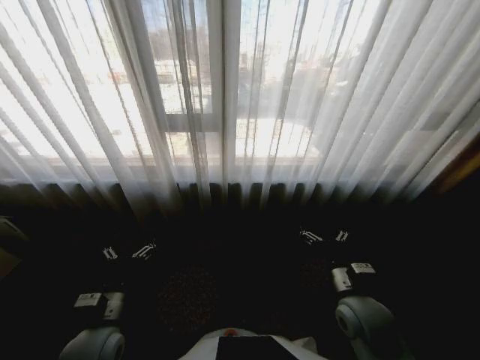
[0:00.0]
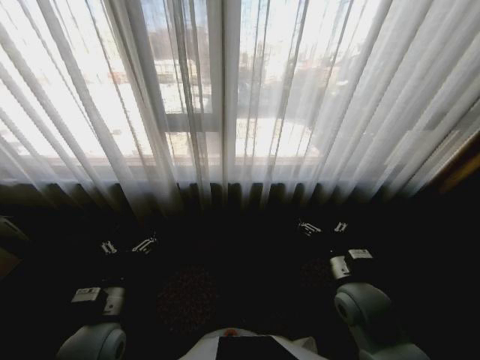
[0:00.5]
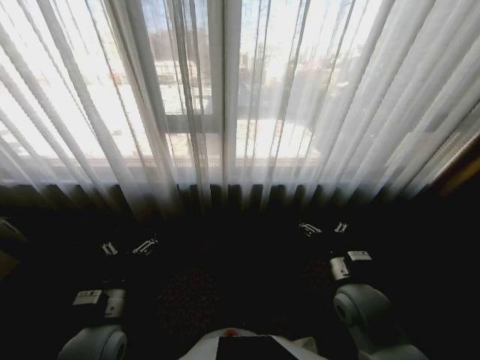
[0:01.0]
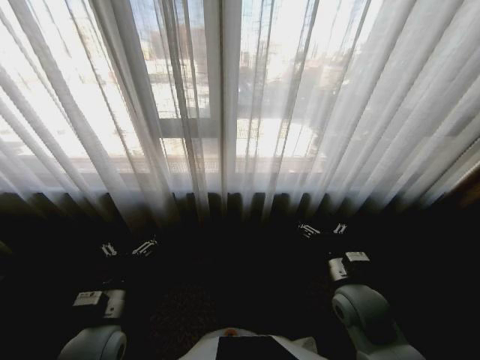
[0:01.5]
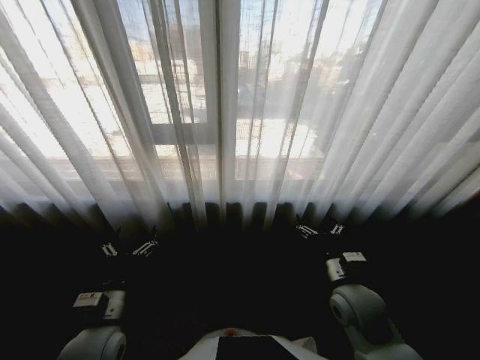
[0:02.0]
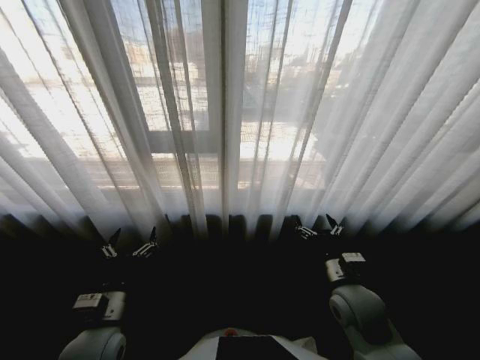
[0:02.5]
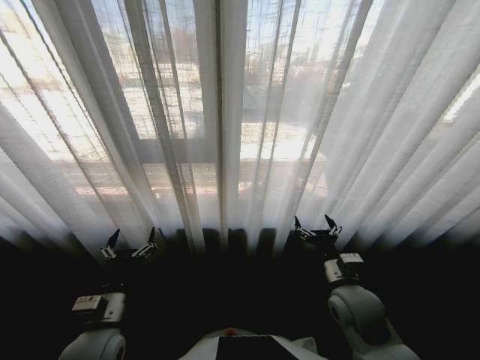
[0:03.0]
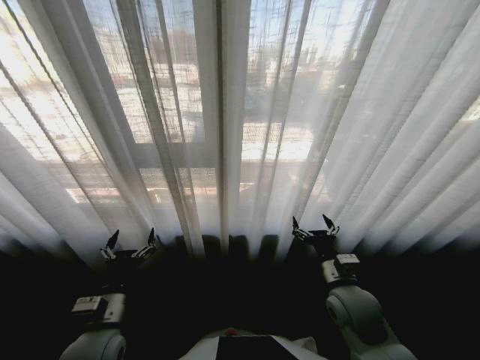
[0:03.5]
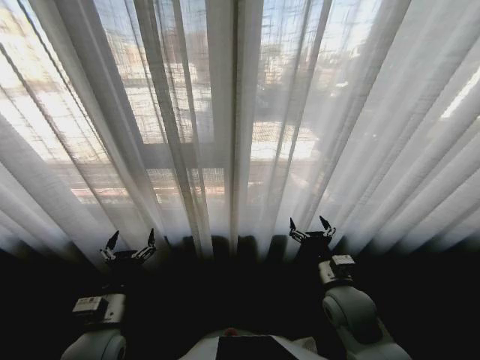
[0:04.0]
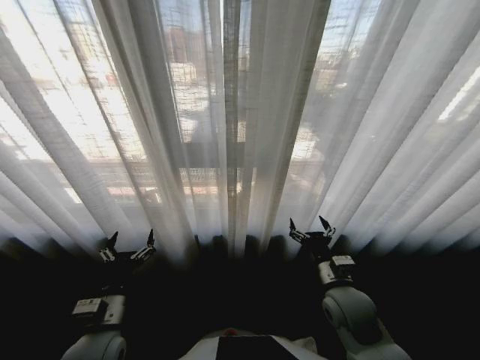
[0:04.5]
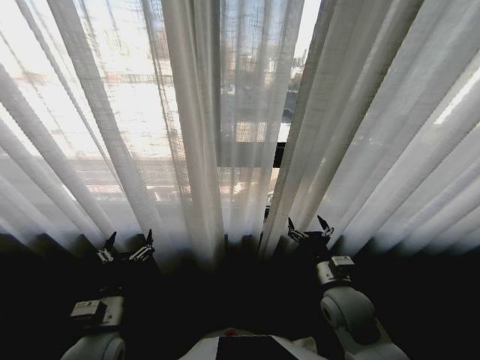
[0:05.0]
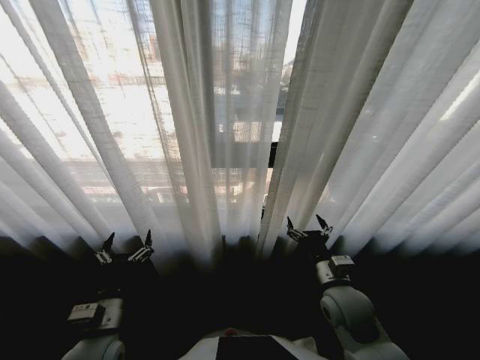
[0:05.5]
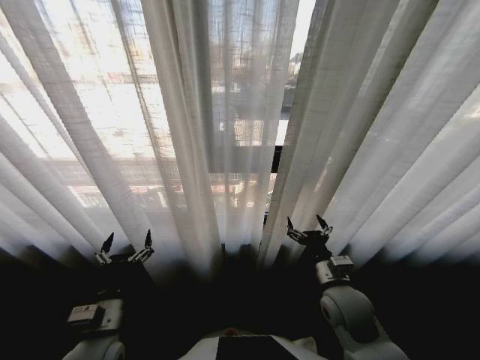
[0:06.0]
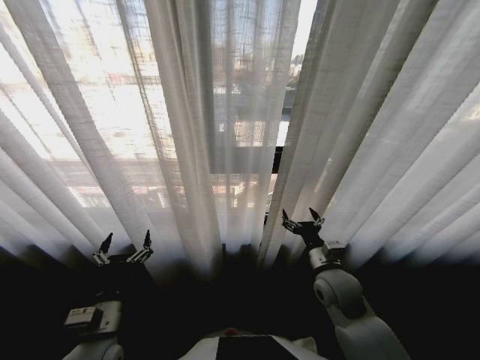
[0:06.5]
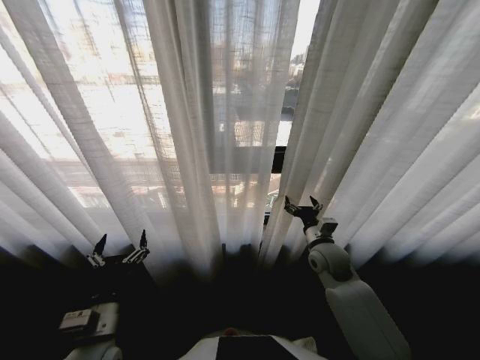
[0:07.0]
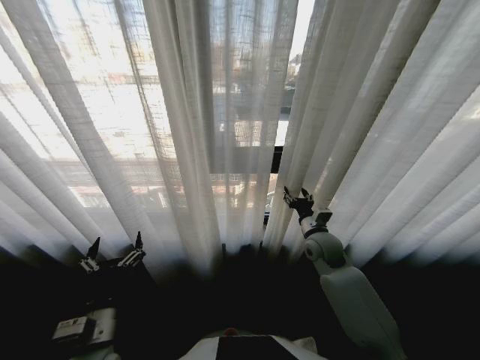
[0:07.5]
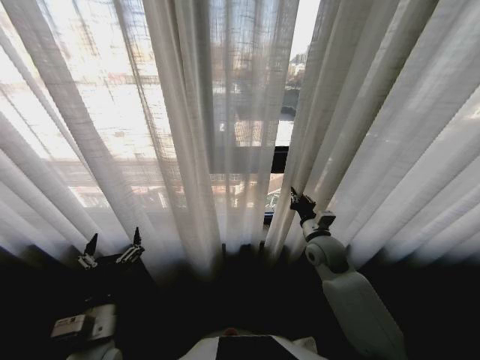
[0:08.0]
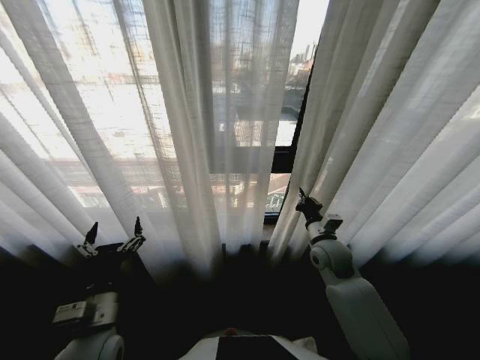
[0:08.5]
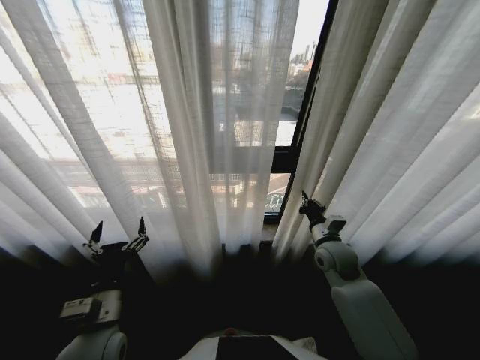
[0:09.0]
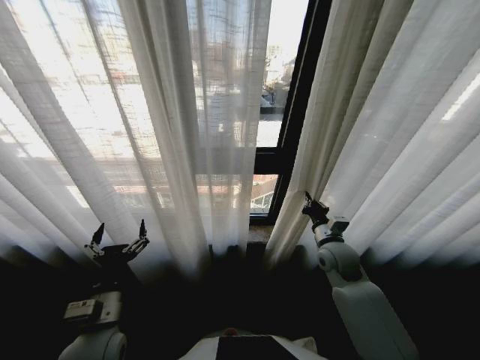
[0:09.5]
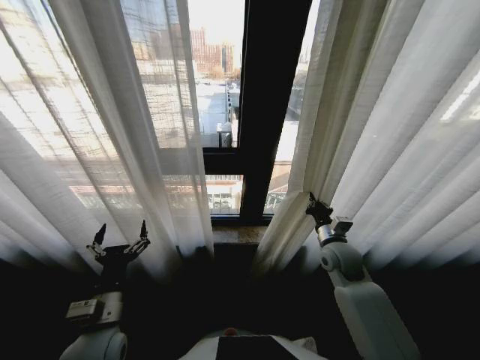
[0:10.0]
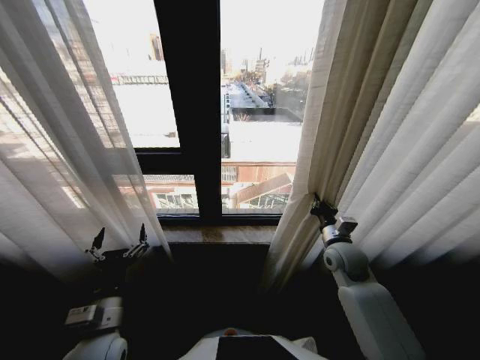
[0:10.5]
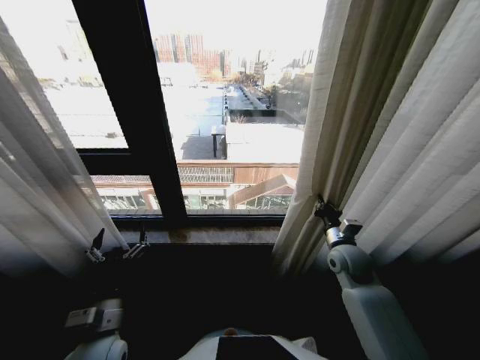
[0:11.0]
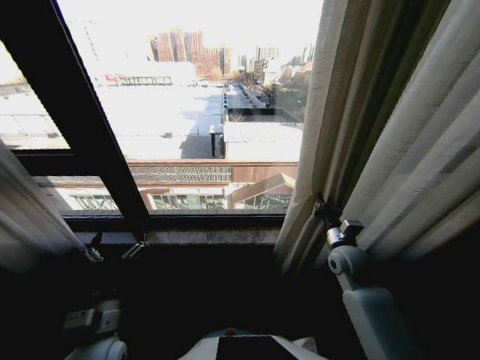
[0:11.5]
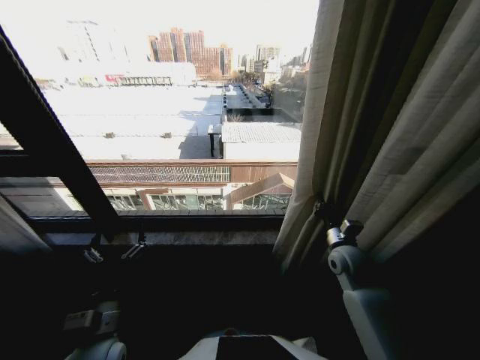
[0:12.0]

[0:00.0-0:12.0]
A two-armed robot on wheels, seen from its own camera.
Task of the whole recording: Open the curtains by pulling them apart, changing their state from closed to fully open.
0:06.0 to 0:08.0: The right gripper moves forward, approximately 15 cm, and closes up.

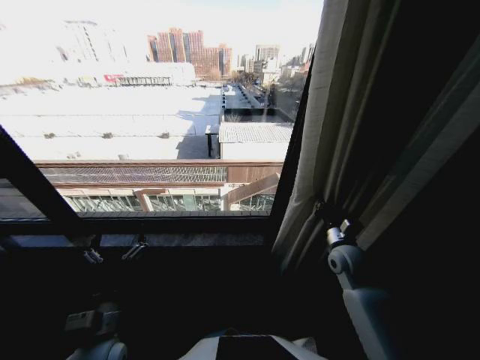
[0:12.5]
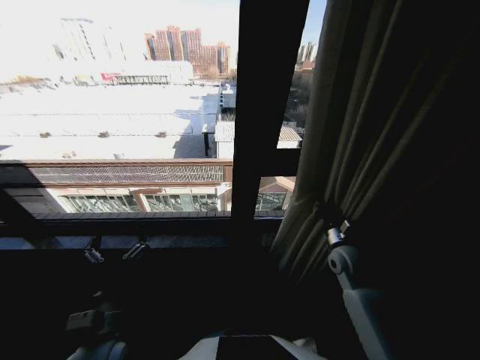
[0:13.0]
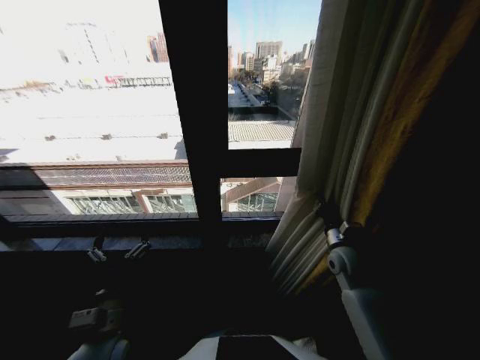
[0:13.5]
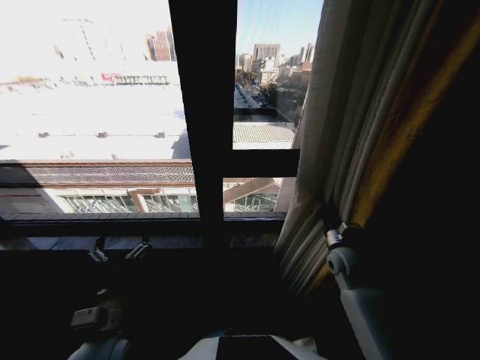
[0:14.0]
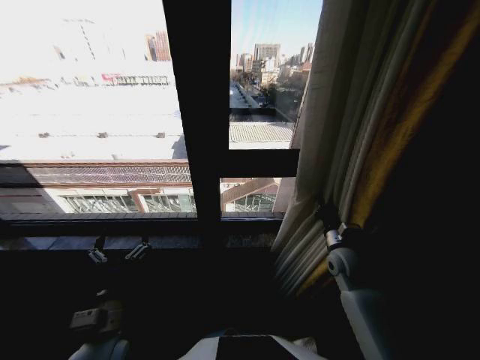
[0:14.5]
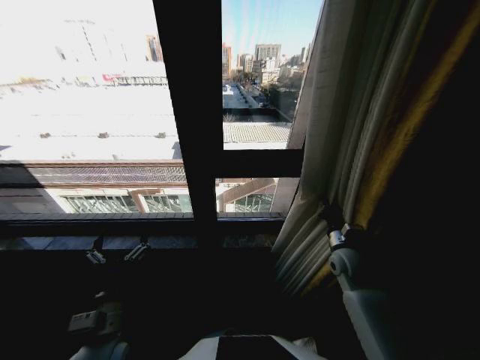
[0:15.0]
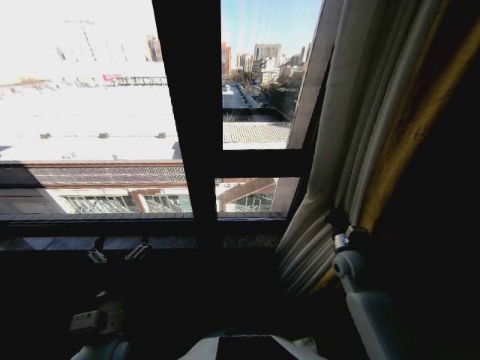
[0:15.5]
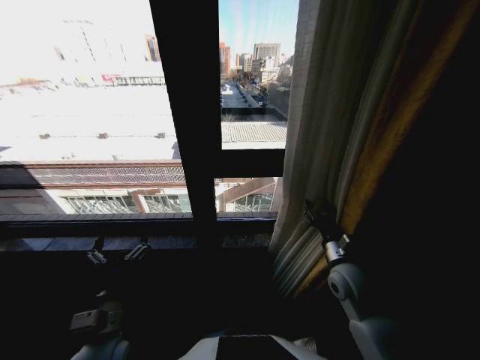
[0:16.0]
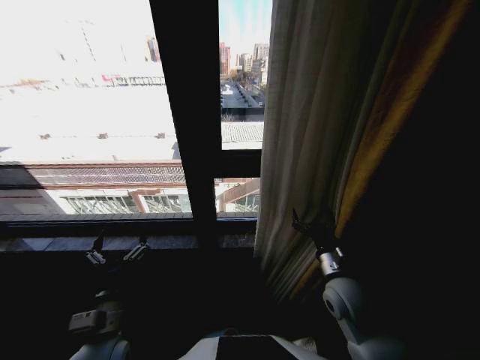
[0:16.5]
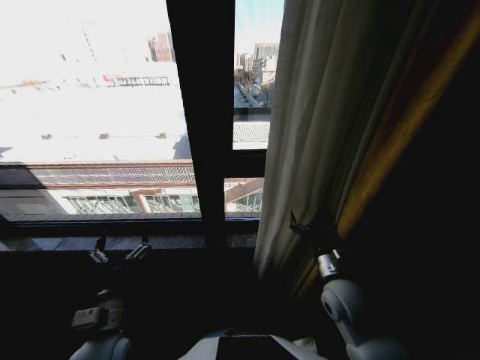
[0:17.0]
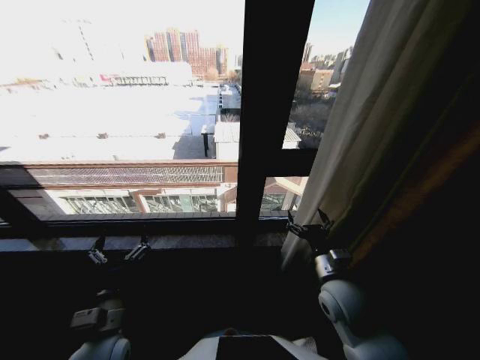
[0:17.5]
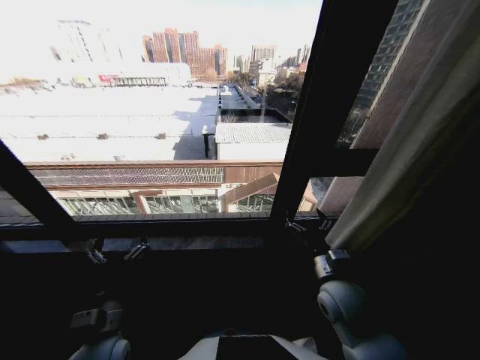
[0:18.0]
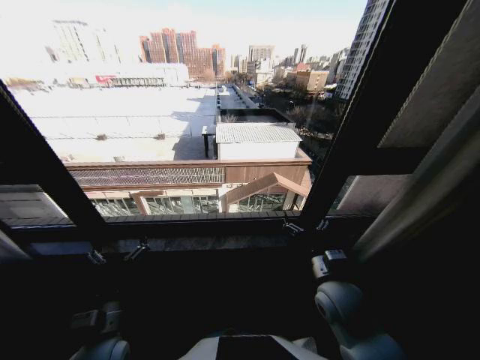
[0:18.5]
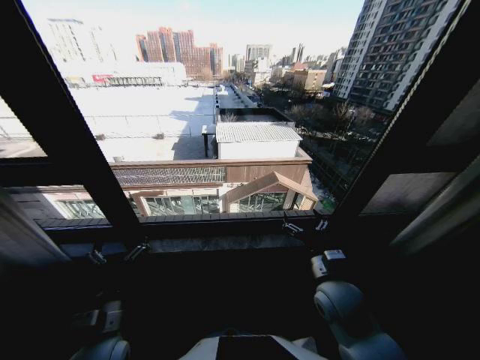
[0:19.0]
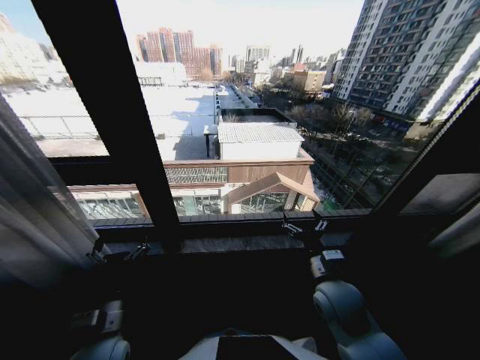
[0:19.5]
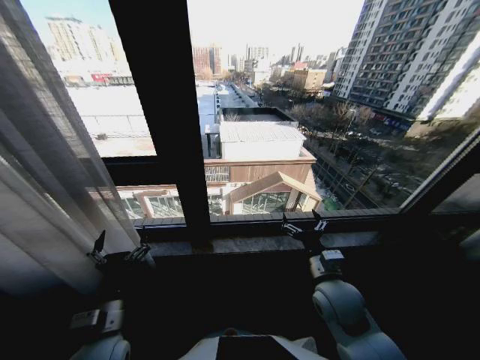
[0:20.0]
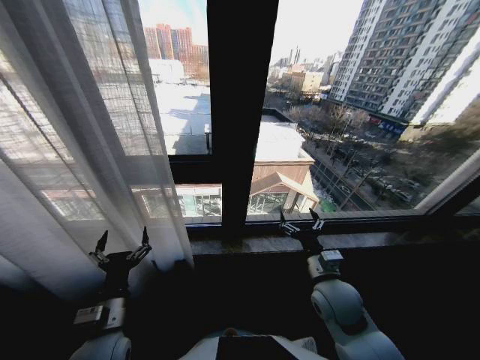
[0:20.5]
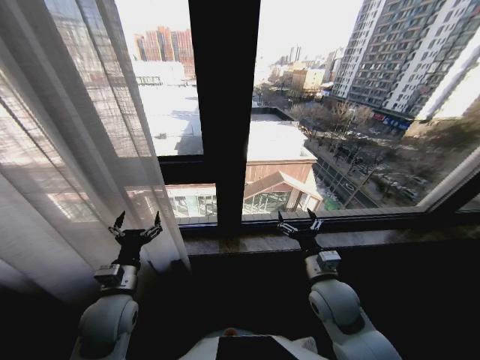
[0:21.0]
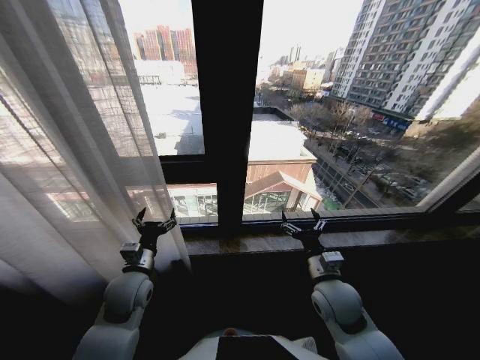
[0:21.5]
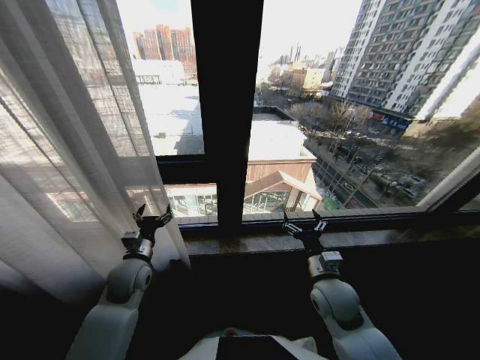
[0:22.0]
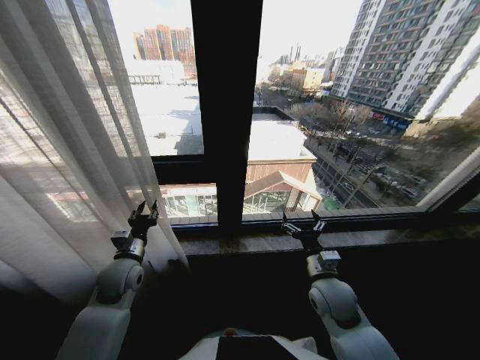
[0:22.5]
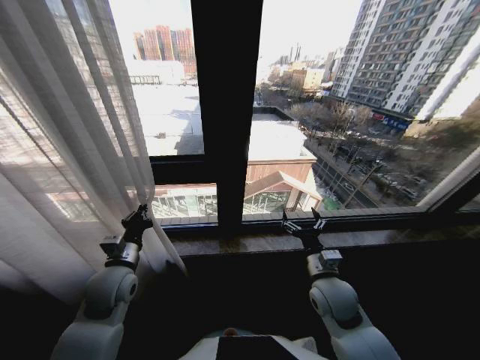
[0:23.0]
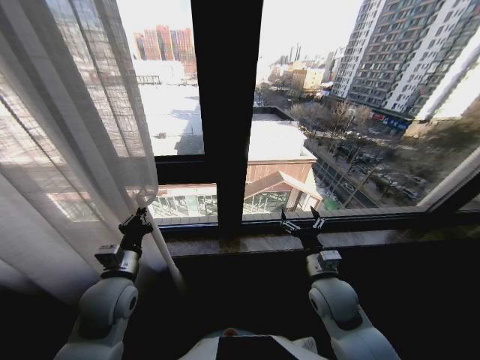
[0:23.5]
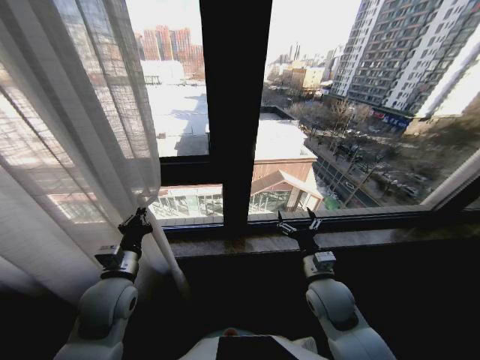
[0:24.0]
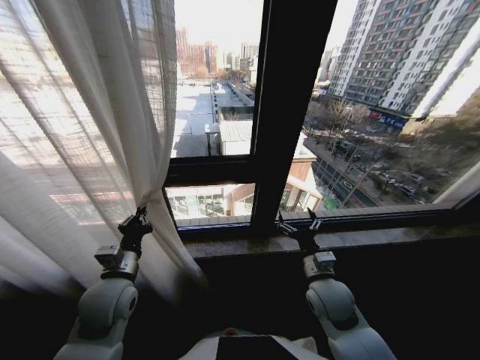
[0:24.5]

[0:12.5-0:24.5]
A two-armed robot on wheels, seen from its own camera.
Task of the whole recording: Open the curtains by pulling them apart, changing their state from closed to fully open.
0:14.5 to 0:16.5: The right gripper moves backward and to the left, about 10 cm, and opens.
0:20.5 to 0:22.5: The left gripper goes some 15 cm forward, and closes its fingers.
0:22.5 to 0:24.5: The left gripper is displaced backward by roughly 5 cm, and closes.

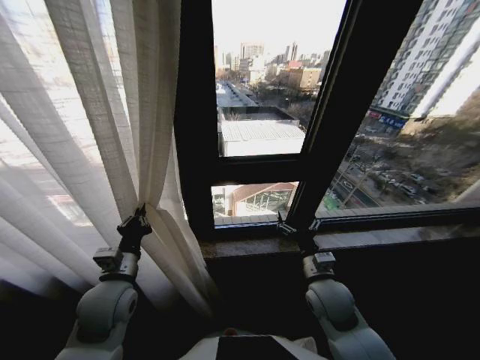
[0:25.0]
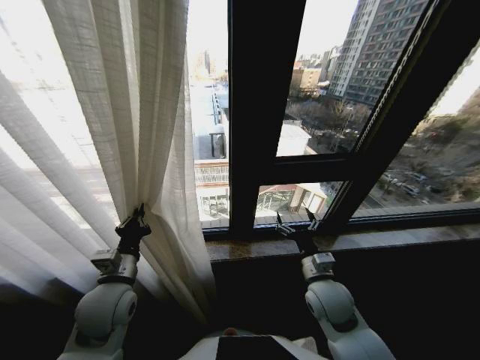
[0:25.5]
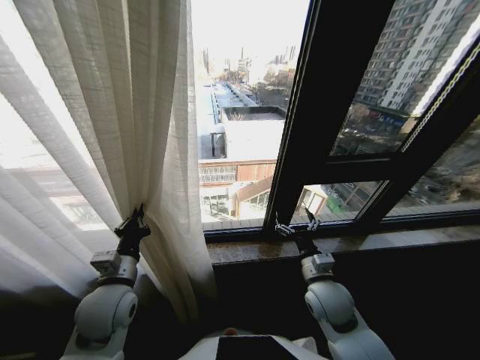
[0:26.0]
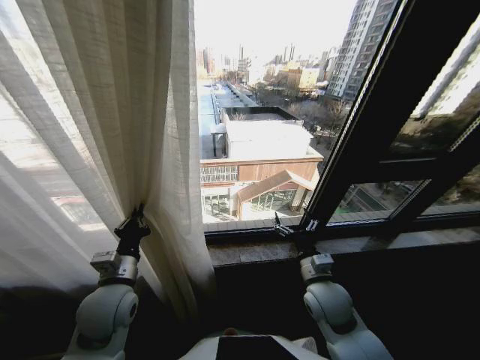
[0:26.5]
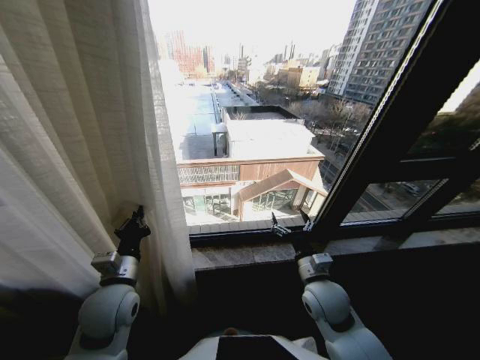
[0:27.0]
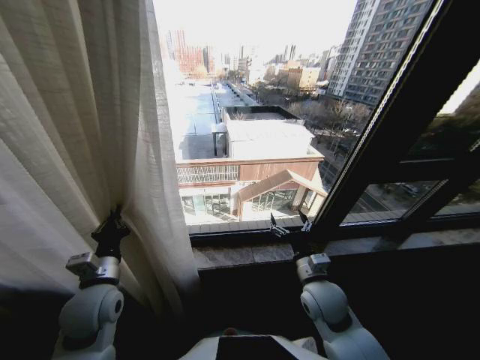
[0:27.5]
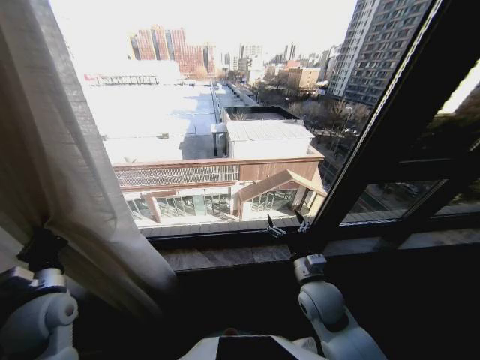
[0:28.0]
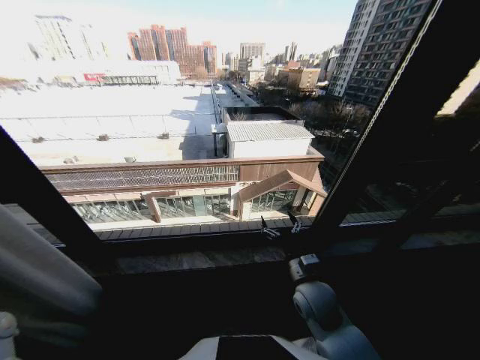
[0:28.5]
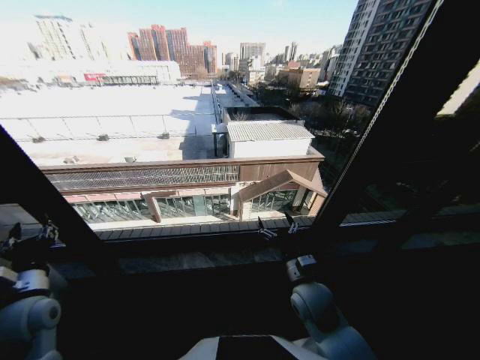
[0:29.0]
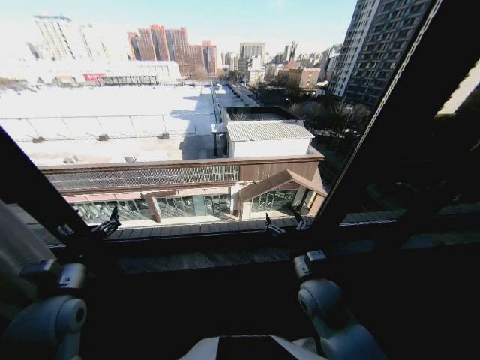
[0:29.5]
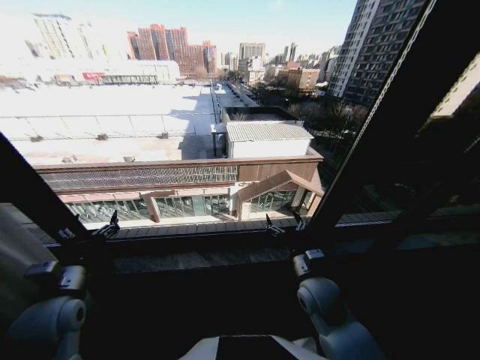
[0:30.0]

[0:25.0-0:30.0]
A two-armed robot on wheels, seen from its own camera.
Task of the whole recording: Open the curtains by pulling them apart, changing their state from closed to fully open.
0:27.5 to 0:30.0: The left gripper travels to the left and back again, some 20 cm each way, and opens.
